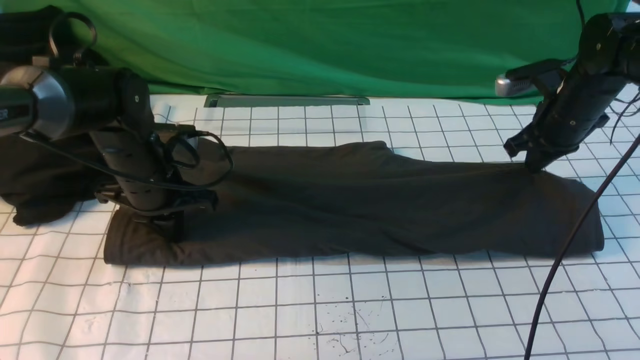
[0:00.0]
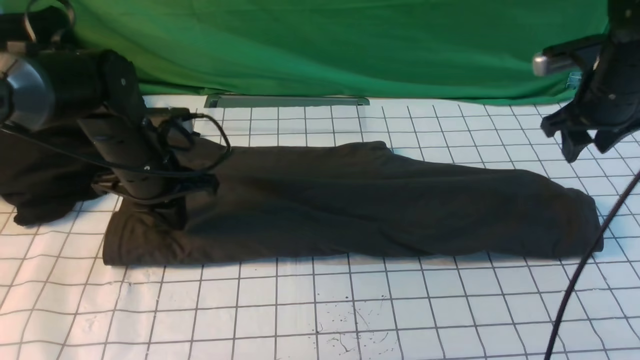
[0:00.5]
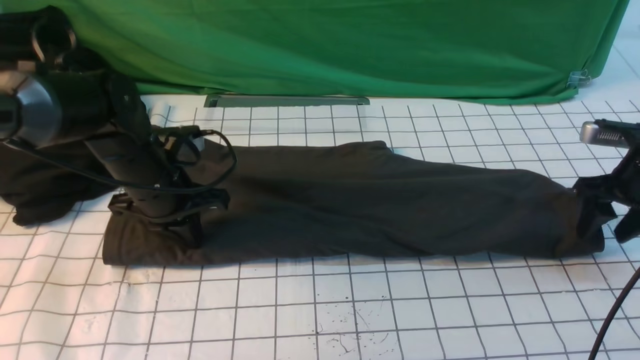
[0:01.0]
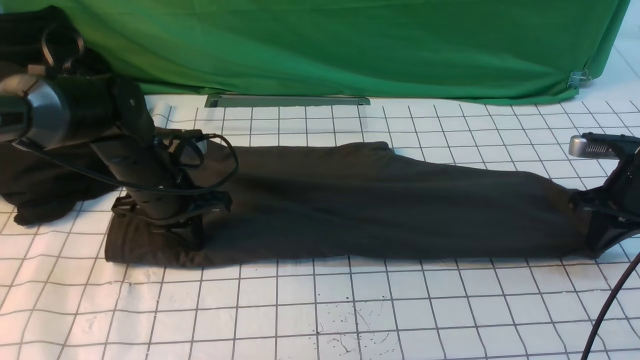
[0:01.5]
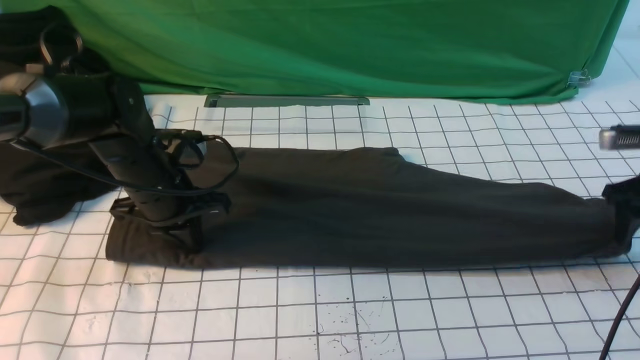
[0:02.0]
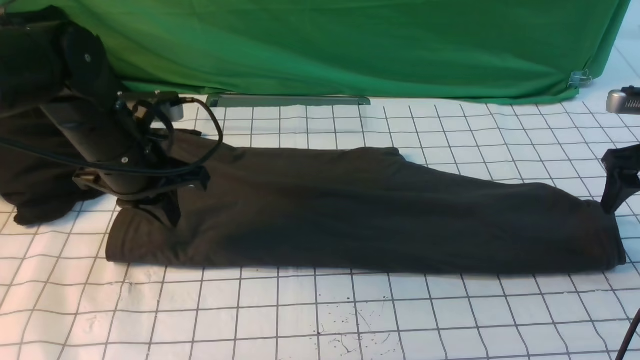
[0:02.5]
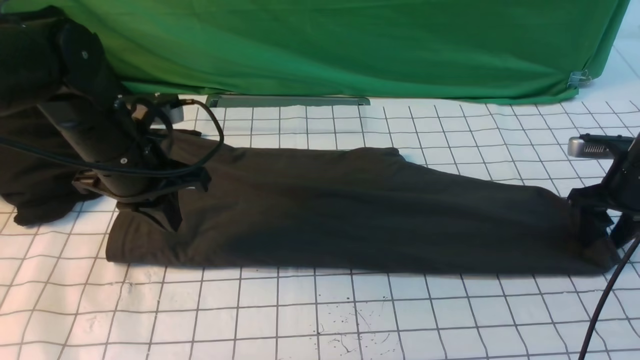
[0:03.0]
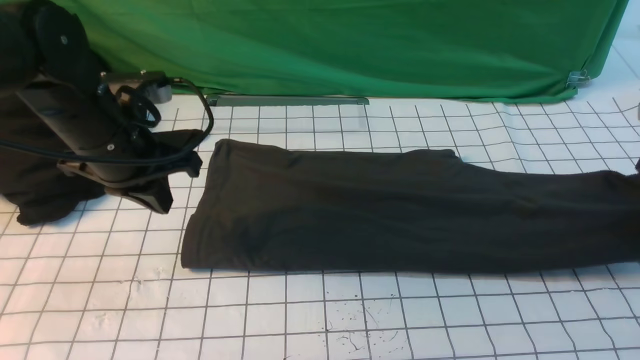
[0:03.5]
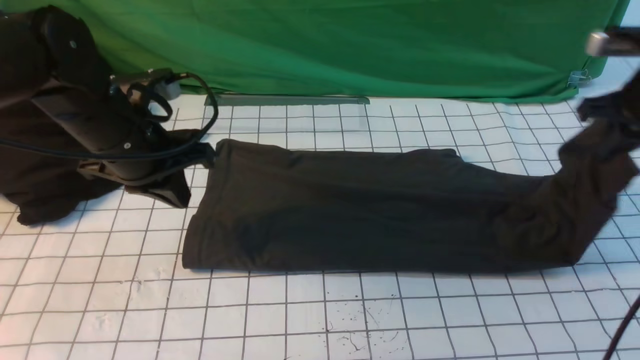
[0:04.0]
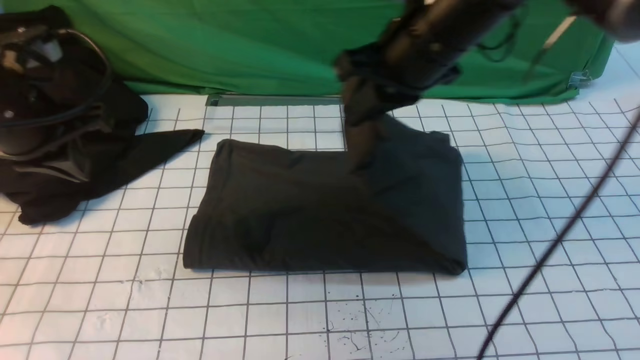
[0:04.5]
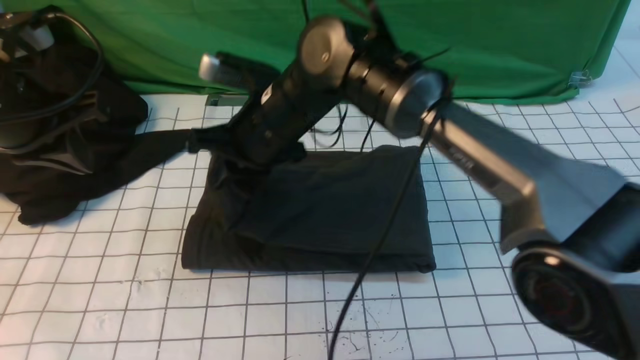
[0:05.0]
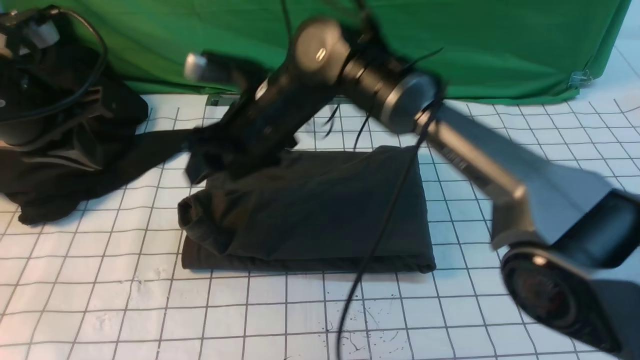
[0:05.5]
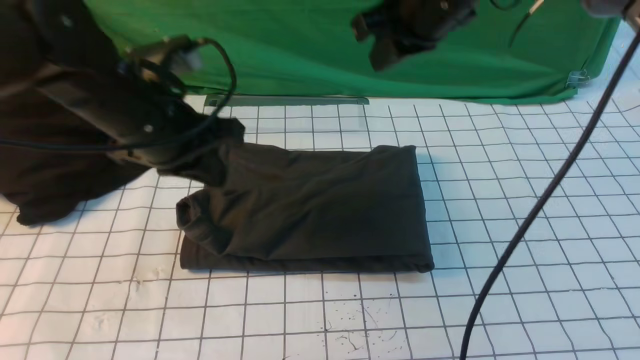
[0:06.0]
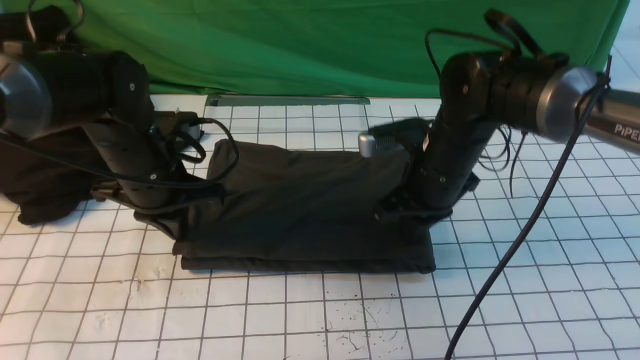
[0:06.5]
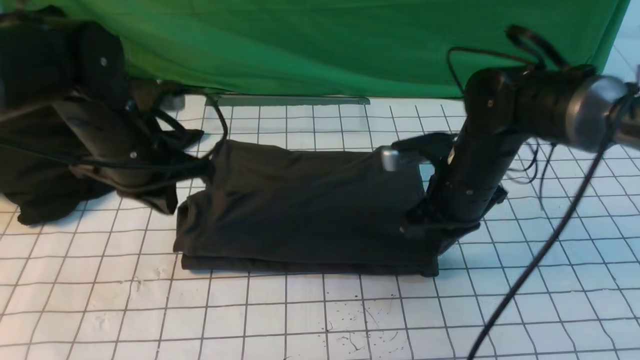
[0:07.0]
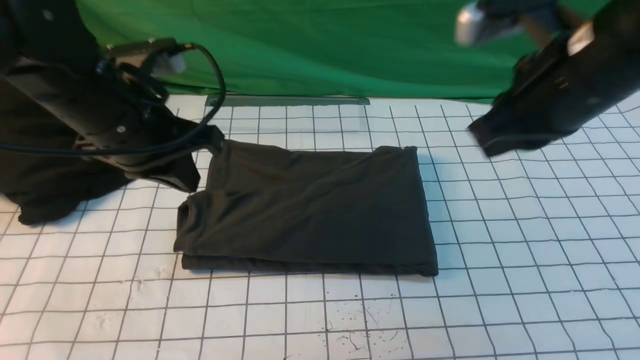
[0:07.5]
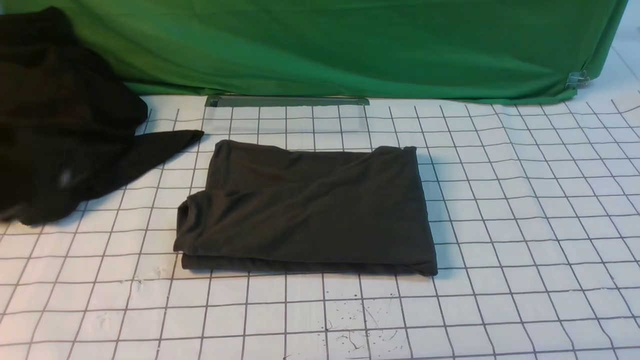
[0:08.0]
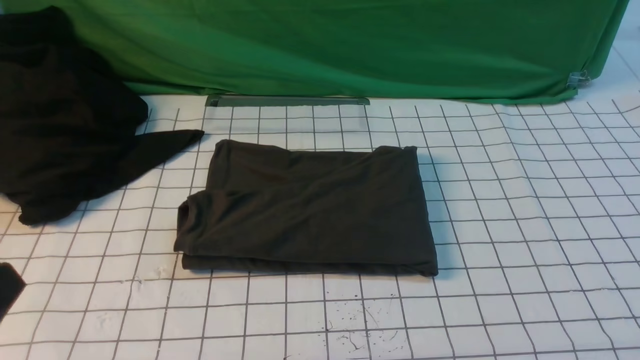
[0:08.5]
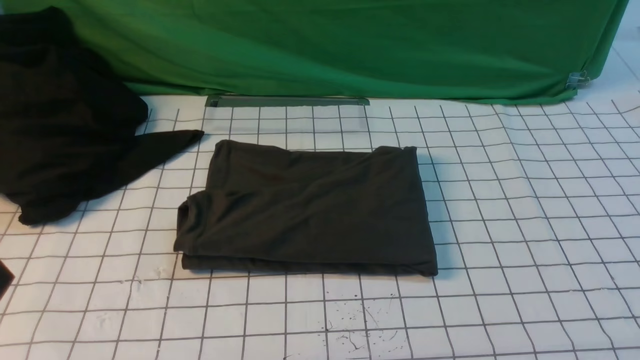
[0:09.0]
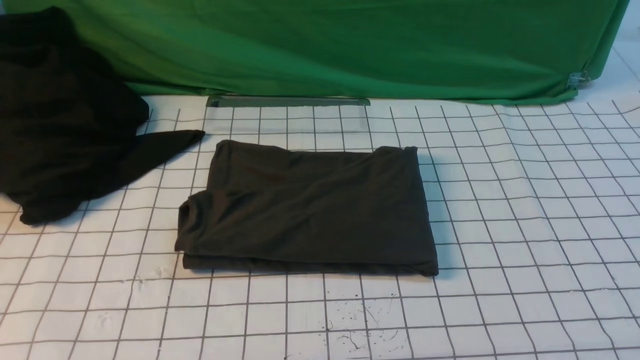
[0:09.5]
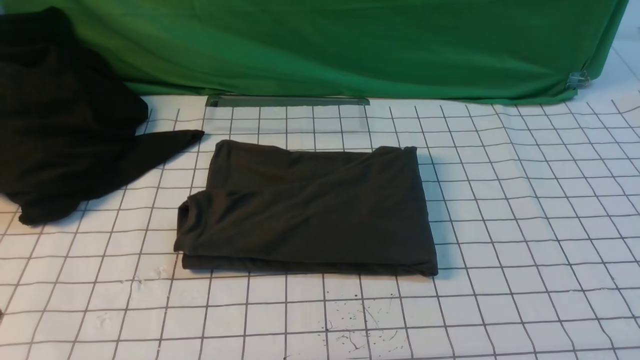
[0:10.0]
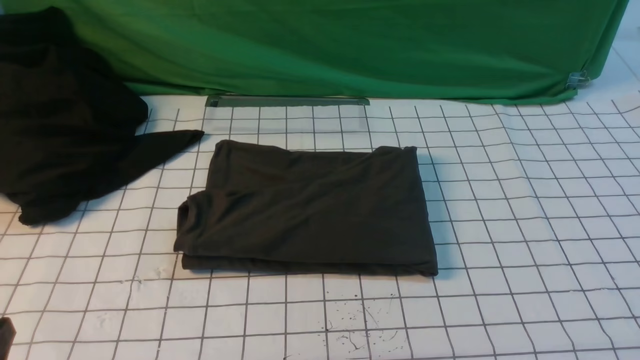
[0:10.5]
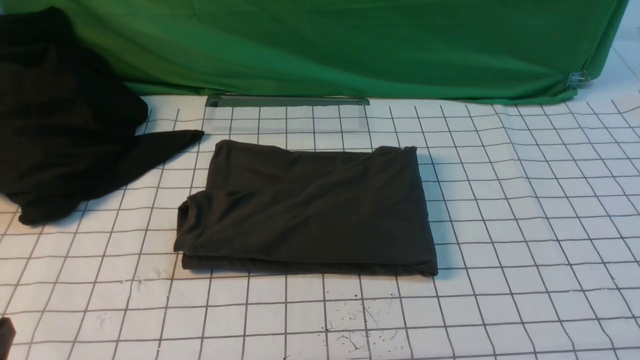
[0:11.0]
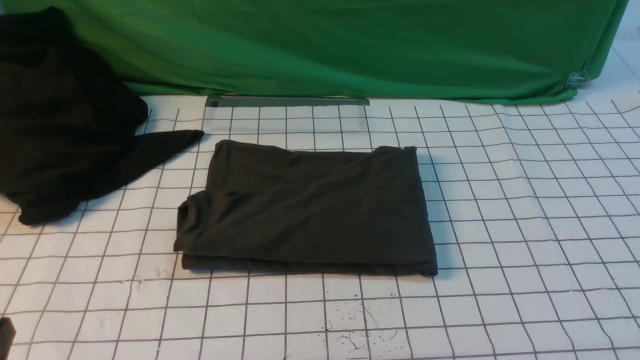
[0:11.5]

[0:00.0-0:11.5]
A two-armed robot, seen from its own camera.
Step, 2.0 to 5.0 s: use the right arm to drag the right edge of the fabric to the left and folds it over the left edge.
0.0 to 2.0 s: The right gripper heads to the right and backward, covering approximately 10 cm, and opens up.
2.0 to 4.0 s: The right gripper shifts about 15 cm upward and to the left, and closes. The left gripper moves upward, some 10 cm.
4.0 to 6.0 s: The right gripper goes roughly 20 cm to the left, and opens, then closes once more. The left gripper travels to the left and back again, some 5 cm each way.
6.0 to 7.5 s: The left gripper is displaced upward by approximately 5 cm. The right gripper travels backward and to the right by about 15 cm, and reaches roughly 15 cm downward, then returns.
7.5 to 9.5 s: The left gripper goes roughly 25 cm backward. Meanwhile the right gripper moves backward and to the right, some 30 cm, and opens up.

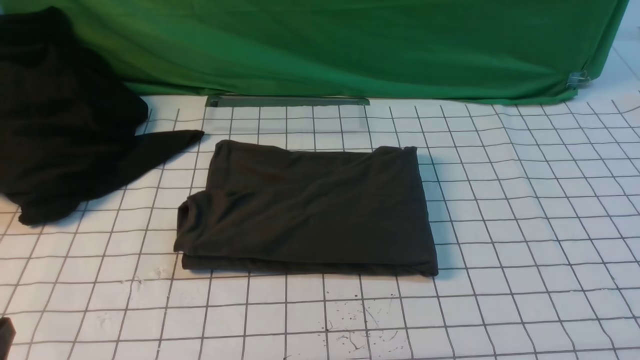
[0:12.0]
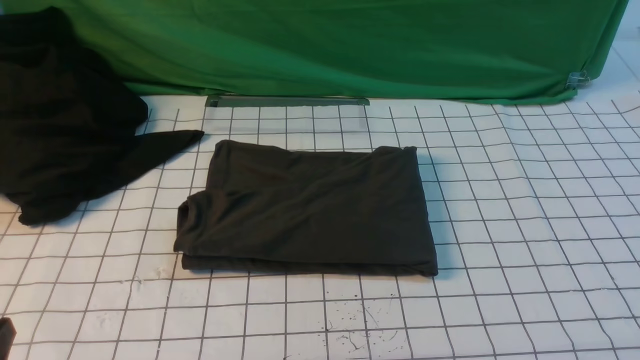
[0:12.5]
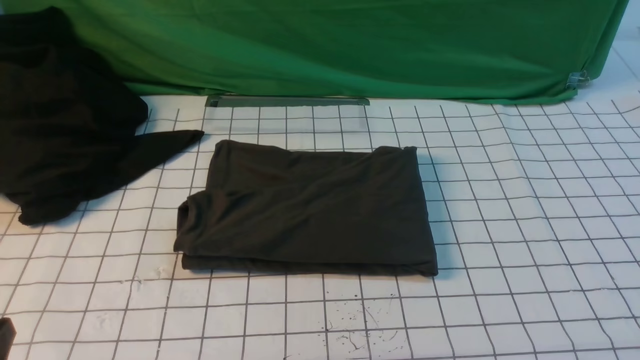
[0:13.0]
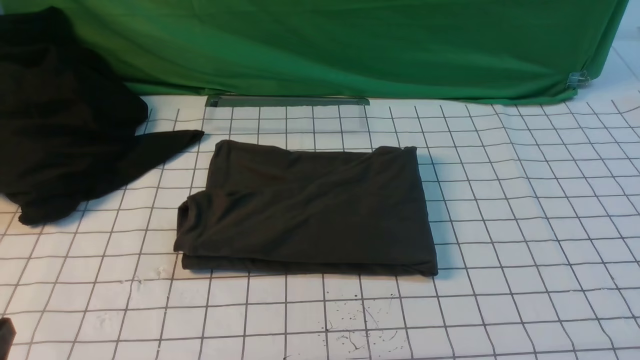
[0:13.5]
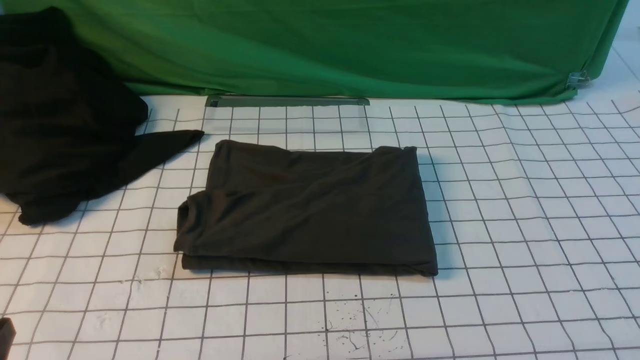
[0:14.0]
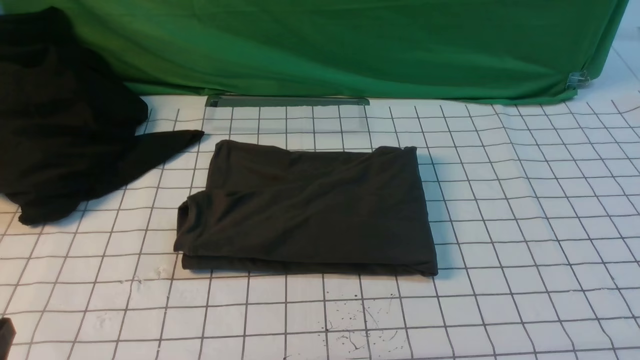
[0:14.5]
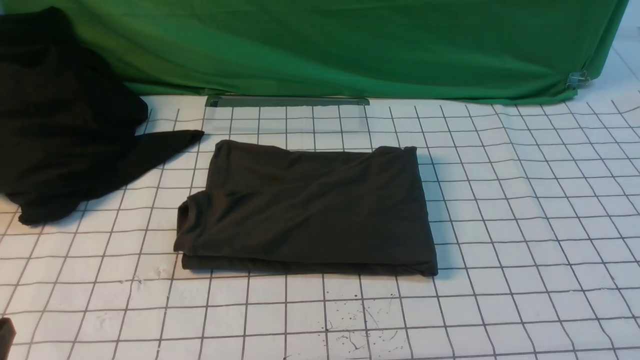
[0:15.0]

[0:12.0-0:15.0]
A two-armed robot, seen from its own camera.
13.5 to 15.0 s: Both grippers stay put.

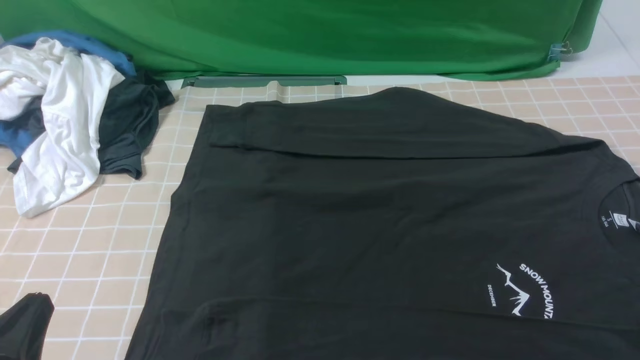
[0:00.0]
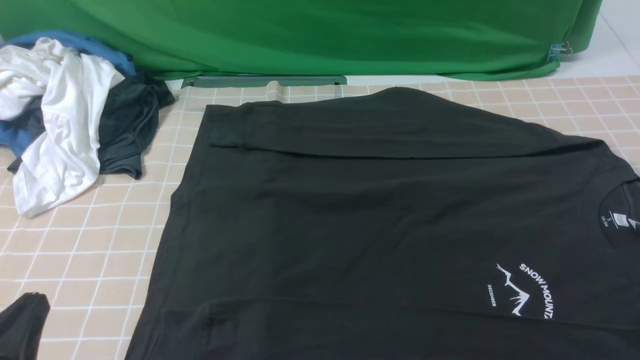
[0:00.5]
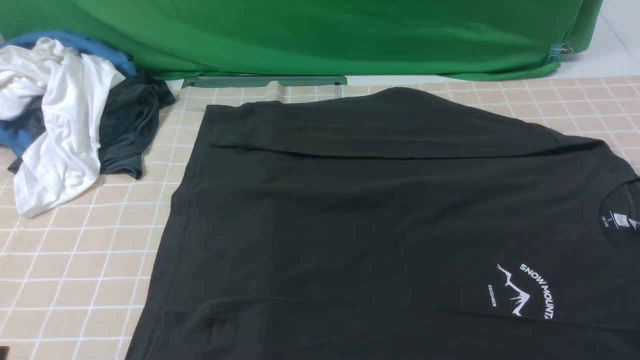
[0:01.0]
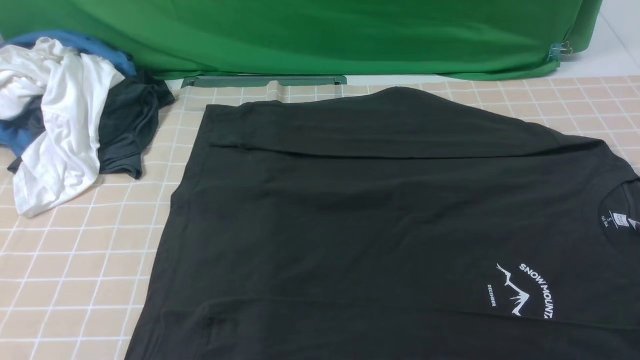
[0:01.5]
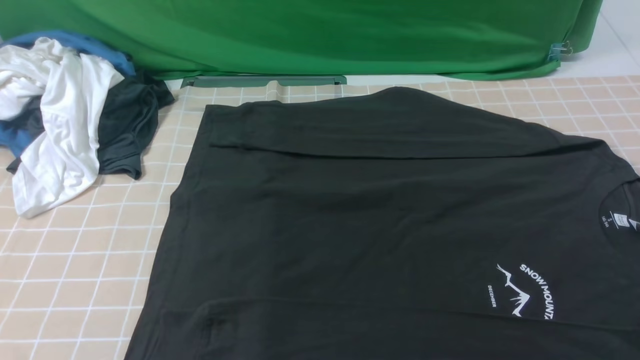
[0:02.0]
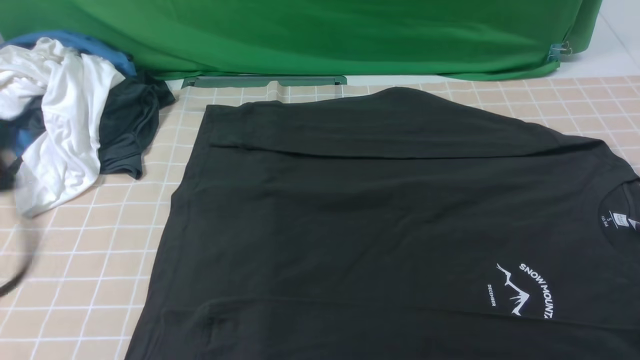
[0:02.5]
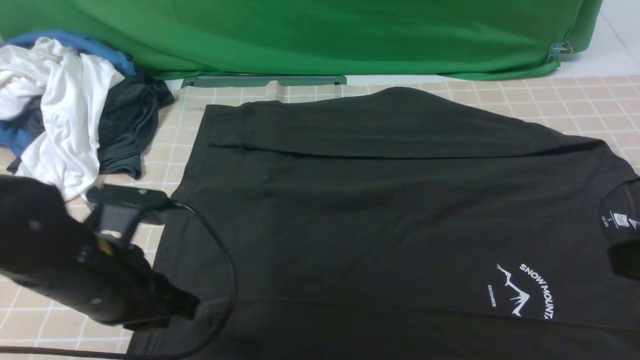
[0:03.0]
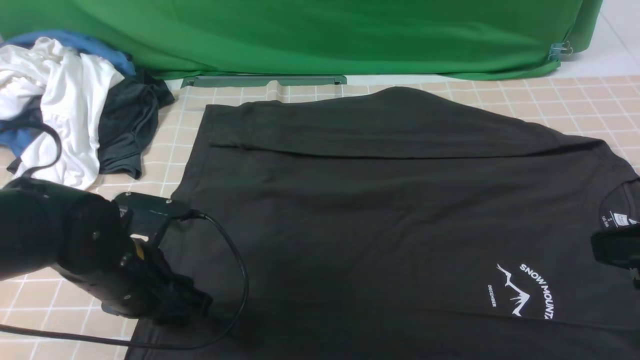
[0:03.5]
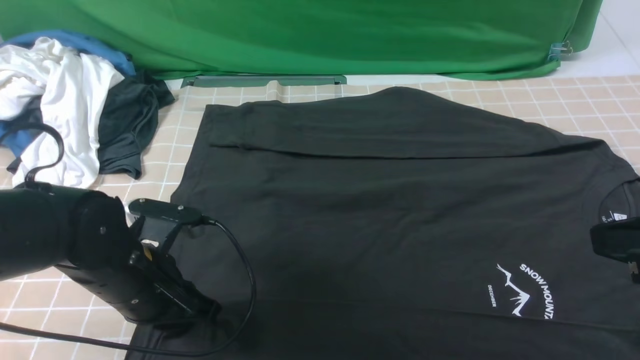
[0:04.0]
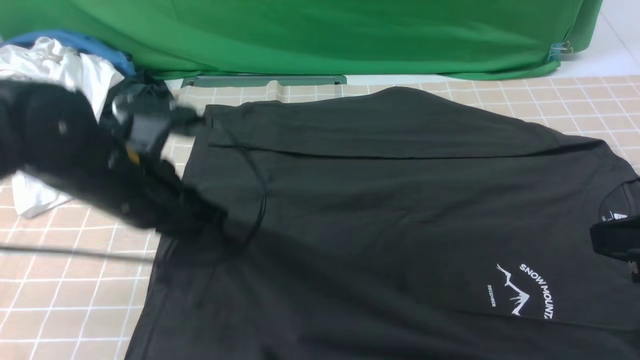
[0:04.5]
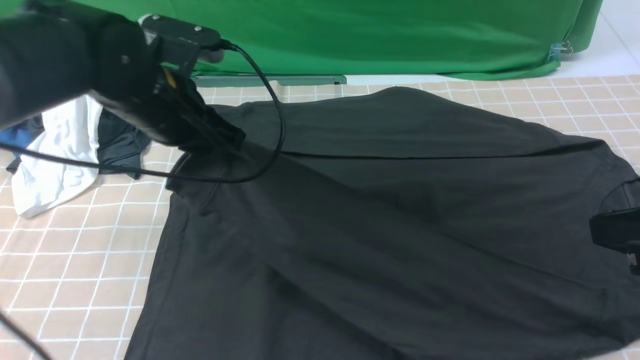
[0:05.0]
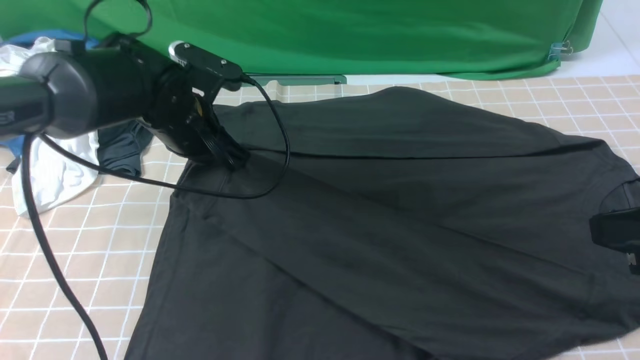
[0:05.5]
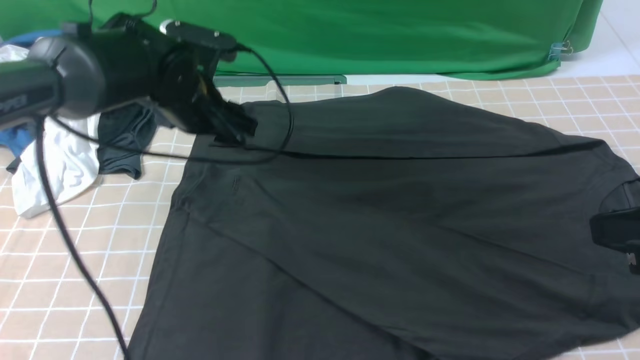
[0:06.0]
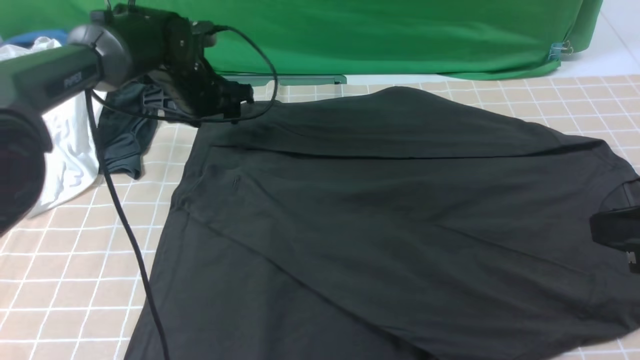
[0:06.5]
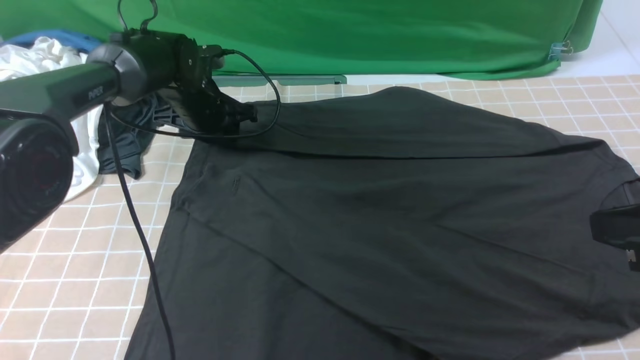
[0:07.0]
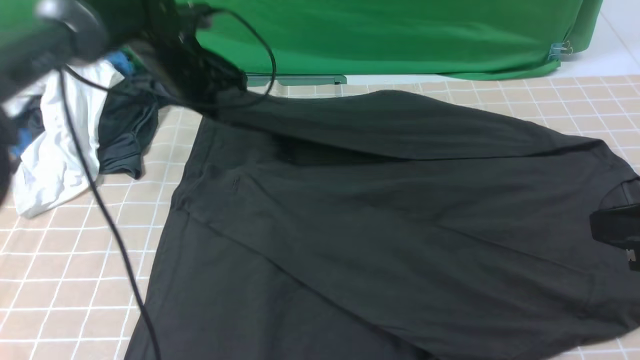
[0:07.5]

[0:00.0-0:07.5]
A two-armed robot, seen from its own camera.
Step, 0.0 to 4.0 s: use the left arm to clamp the cuff closest to it.
Step, 4.5 to 5.5 s: use the left arm to drag and place the cuff at the centered position on the left edge of the fabric.
Step, 6.0 to 7.0 s: use the left arm to clamp the cuff farthest from it.
0.0 to 2.0 s: The left gripper is displaced upward by roughly 10 cm.
2.0 to 4.0 s: The right gripper travels forward, upward and to the left by roughly 15 cm. Meanwhile the left gripper travels forward, downward and to the right by about 25 cm, and opens and closes again.
4.0 to 5.5 s: The left gripper travels forward by about 15 cm.
5.5 to 7.5 s: The left gripper goes approximately 10 cm forward, and opens, then closes once more.
